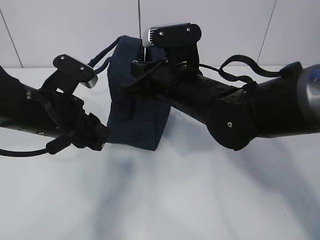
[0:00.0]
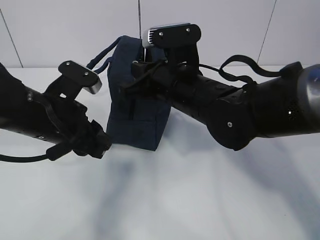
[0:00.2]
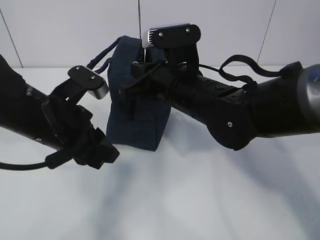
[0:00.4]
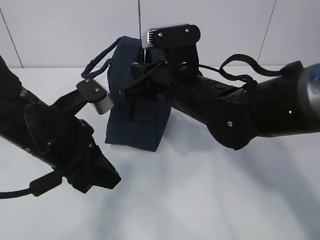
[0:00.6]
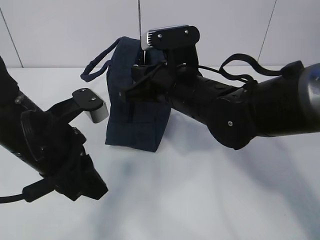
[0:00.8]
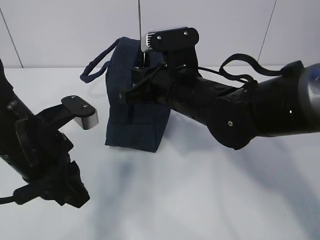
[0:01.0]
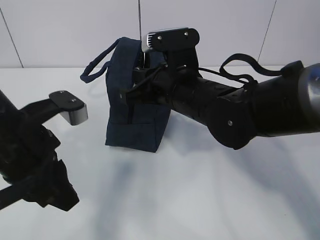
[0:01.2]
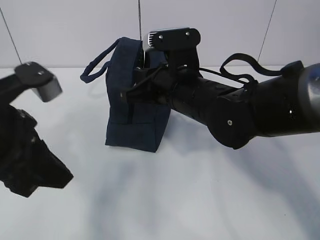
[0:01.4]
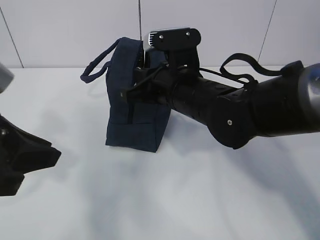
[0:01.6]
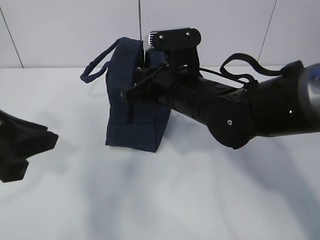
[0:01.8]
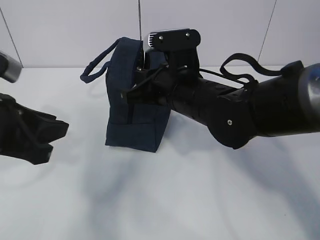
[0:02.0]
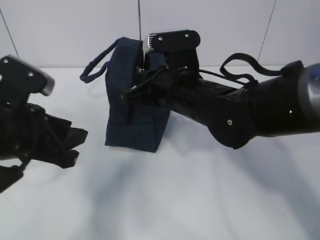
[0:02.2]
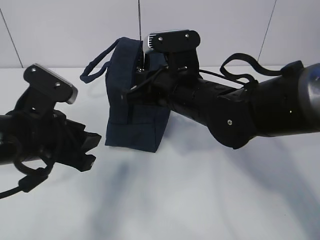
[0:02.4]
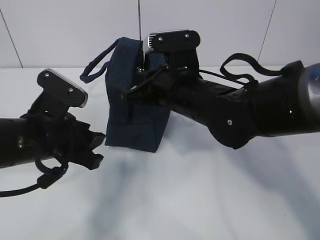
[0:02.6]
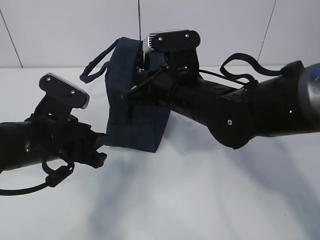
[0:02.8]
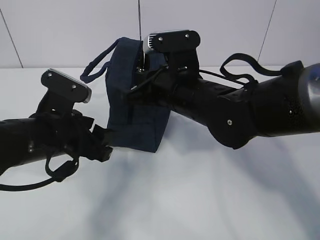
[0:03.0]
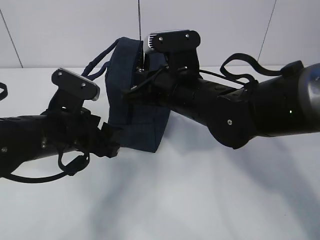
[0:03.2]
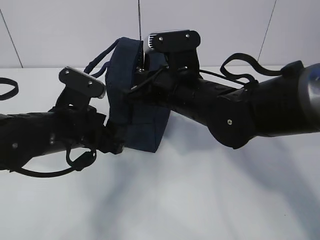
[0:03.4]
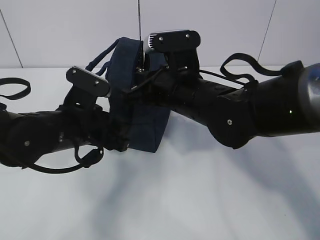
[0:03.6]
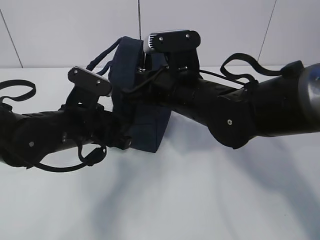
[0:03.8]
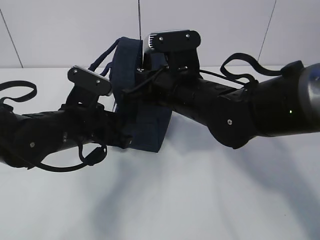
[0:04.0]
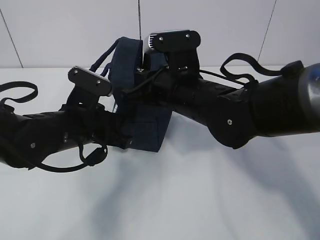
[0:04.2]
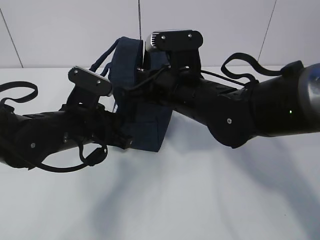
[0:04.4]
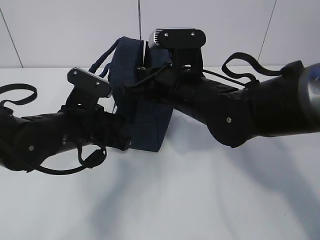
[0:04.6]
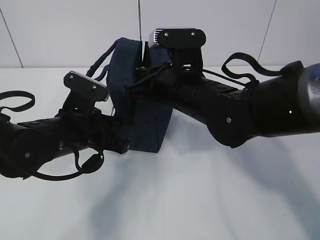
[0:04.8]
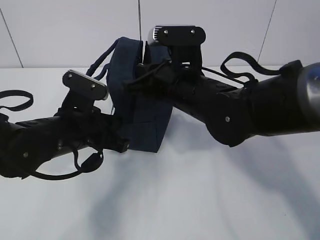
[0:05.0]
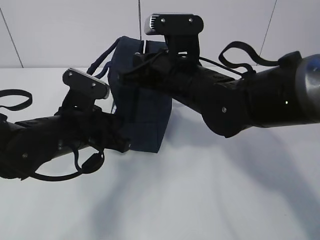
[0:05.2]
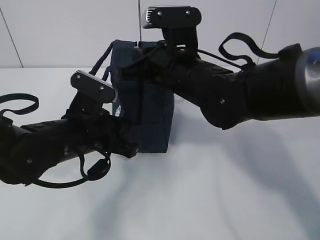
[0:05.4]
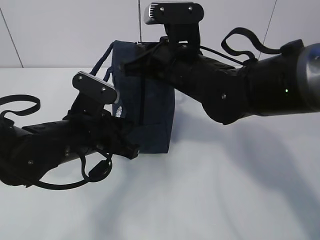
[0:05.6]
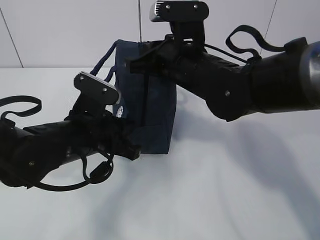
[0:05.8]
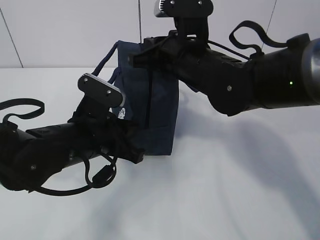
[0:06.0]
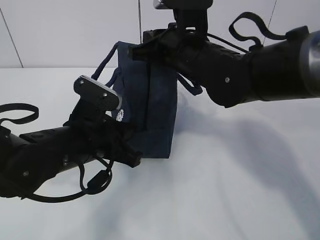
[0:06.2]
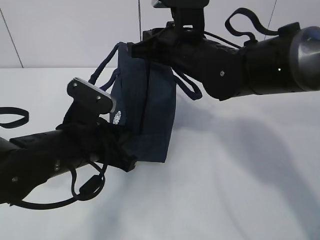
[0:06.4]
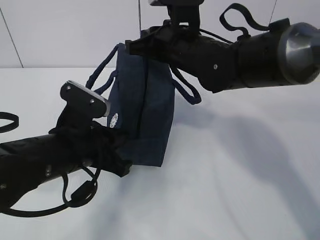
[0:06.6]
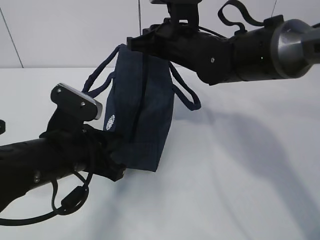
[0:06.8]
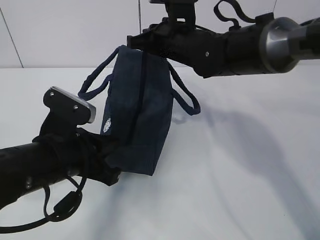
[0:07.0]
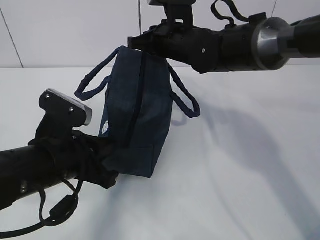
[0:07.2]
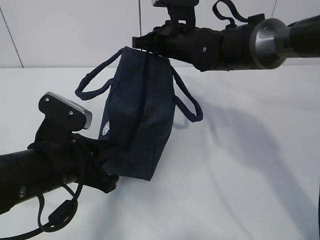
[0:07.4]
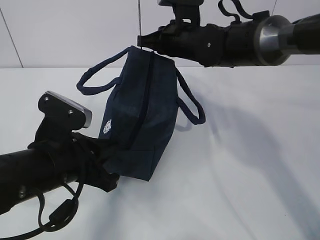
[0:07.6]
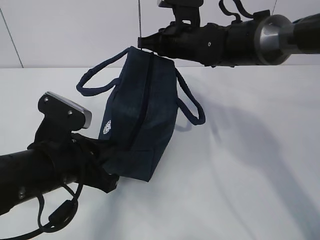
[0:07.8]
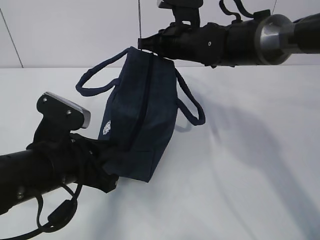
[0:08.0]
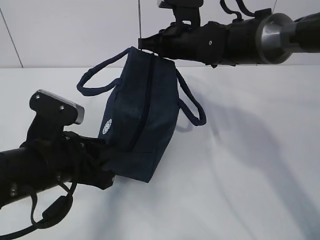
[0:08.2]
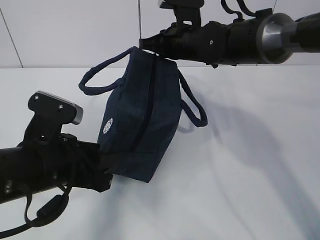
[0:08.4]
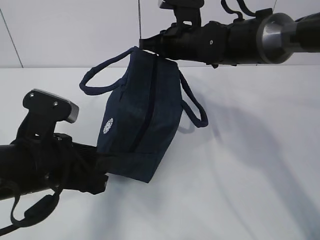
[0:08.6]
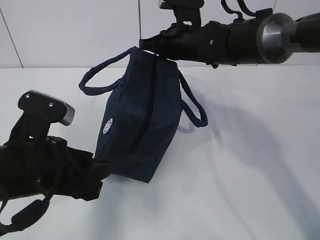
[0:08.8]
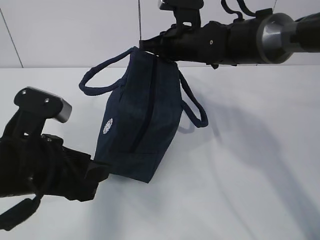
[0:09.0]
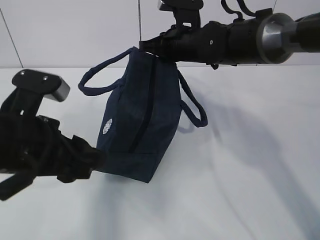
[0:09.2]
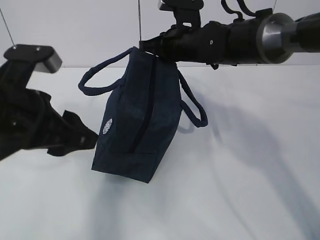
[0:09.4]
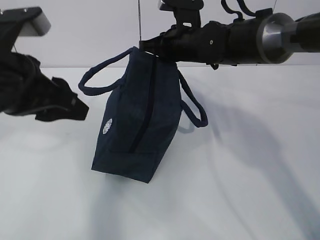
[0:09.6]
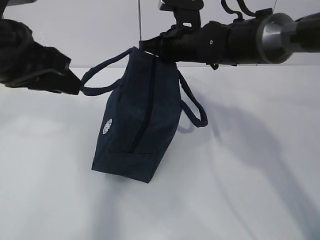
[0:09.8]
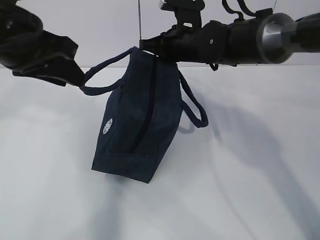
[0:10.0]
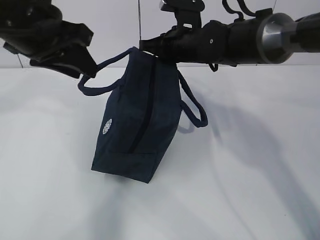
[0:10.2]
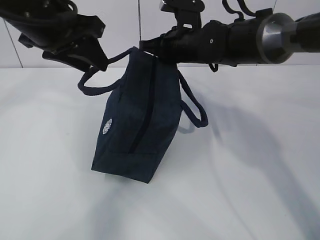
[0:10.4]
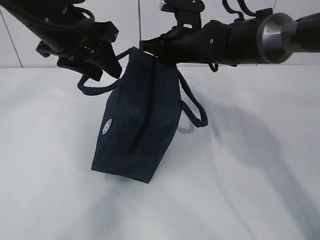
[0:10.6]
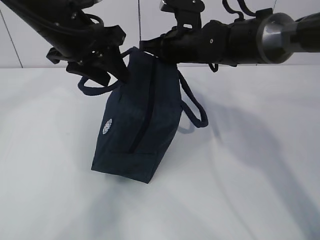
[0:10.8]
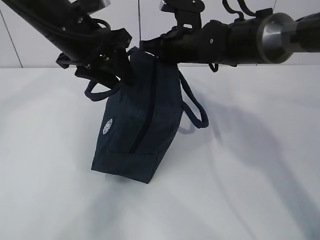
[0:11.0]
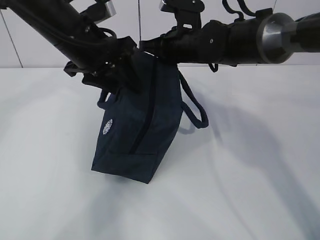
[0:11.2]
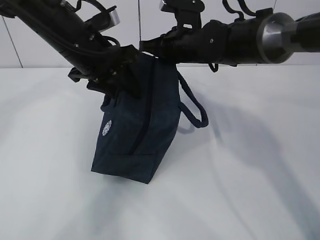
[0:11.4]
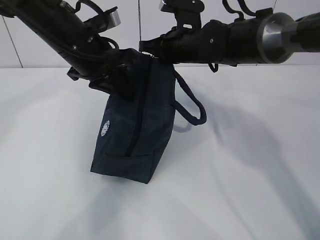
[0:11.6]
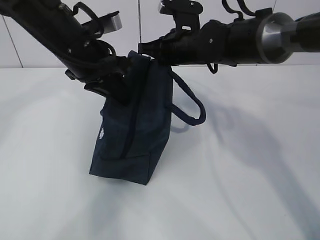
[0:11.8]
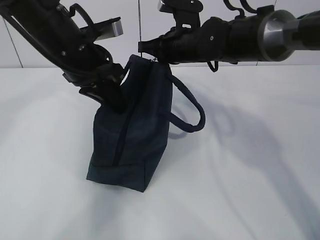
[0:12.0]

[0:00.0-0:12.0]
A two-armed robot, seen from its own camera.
Step, 0:01.6 to 0:02.2: Grab the lunch bag with your left hand.
0:00.0 to 0:01.6: The left gripper is displaced backward and upward by roughly 15 cm.
0:01.6 to 0:03.0: The left gripper travels downward and forward by roughly 15 cm, and opens up.
0:03.0 to 0:04.4: The left gripper closes up.
0:06.0 to 0:07.6: The right gripper goes some 10 cm forward; the left gripper is displaced backward by approximately 5 cm.
0:07.6 to 0:09.0: The left gripper moves about 5 cm, and opens its fingers.
0:09.0 to 0:10.4: The left gripper moves forward and upward, about 20 cm.
0:10.4 to 0:12.0: The left gripper moves downward, about 5 cm, and closes up.

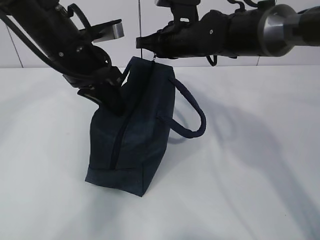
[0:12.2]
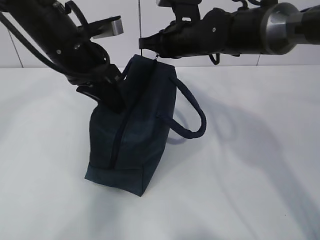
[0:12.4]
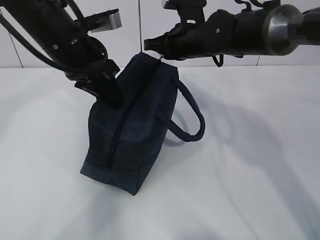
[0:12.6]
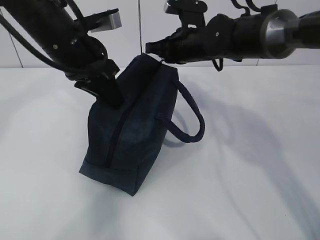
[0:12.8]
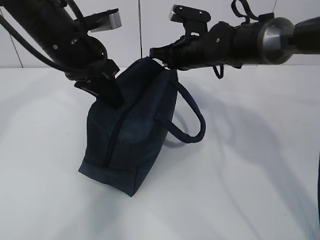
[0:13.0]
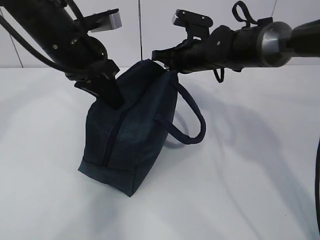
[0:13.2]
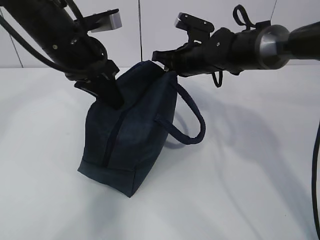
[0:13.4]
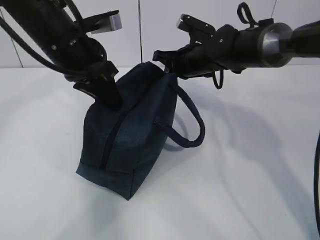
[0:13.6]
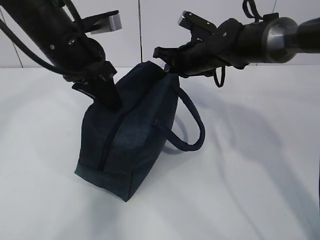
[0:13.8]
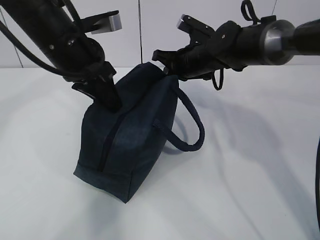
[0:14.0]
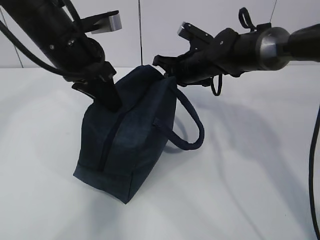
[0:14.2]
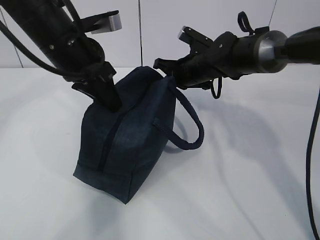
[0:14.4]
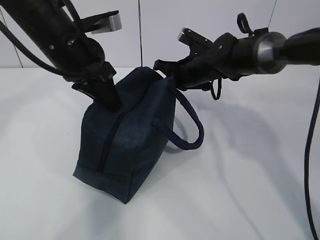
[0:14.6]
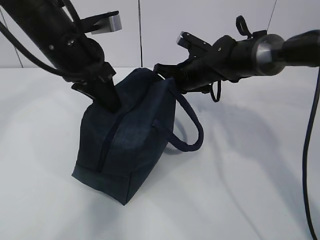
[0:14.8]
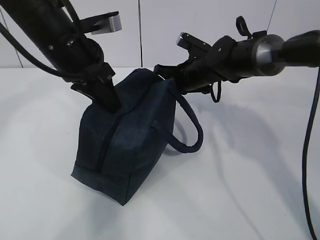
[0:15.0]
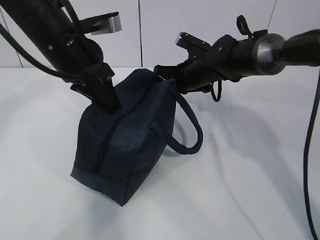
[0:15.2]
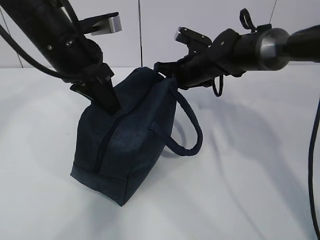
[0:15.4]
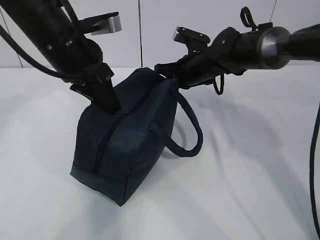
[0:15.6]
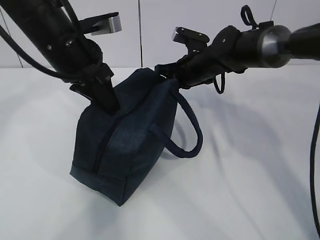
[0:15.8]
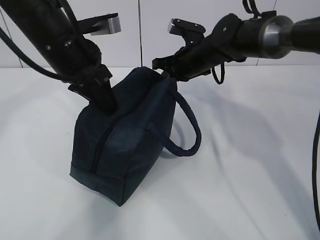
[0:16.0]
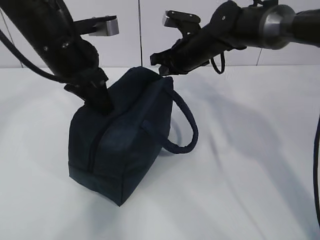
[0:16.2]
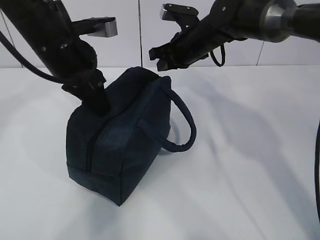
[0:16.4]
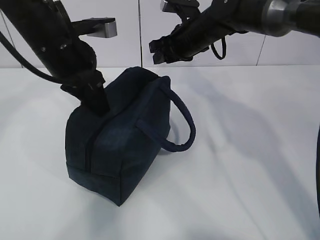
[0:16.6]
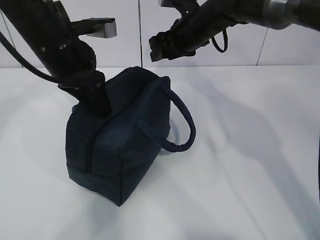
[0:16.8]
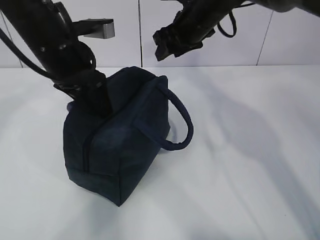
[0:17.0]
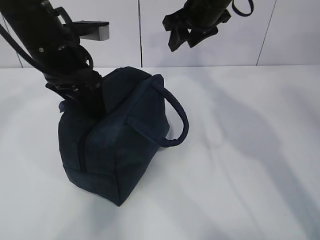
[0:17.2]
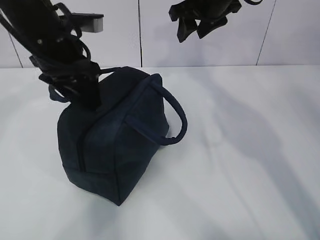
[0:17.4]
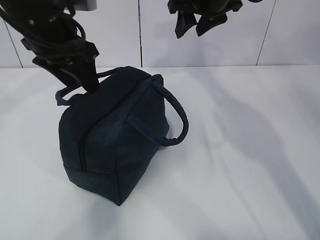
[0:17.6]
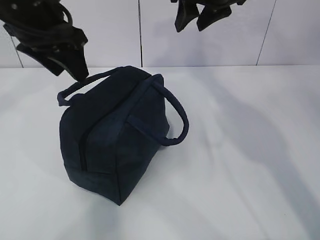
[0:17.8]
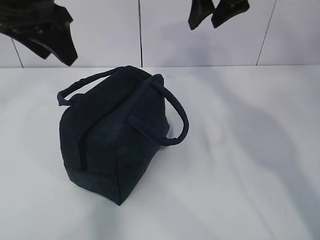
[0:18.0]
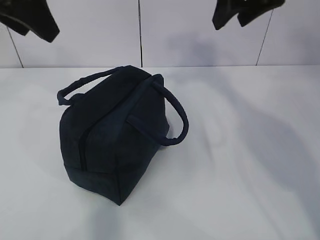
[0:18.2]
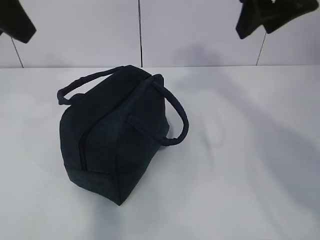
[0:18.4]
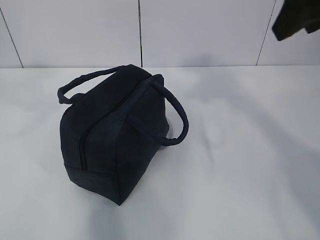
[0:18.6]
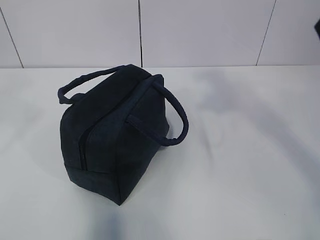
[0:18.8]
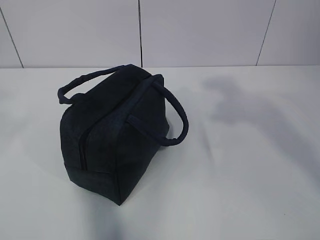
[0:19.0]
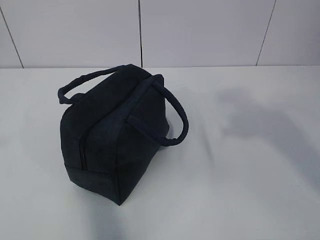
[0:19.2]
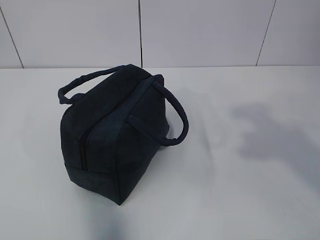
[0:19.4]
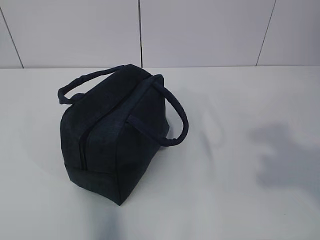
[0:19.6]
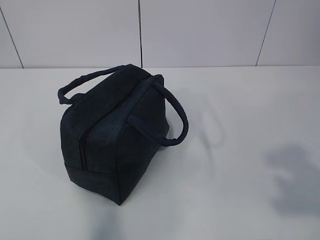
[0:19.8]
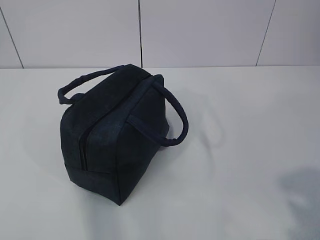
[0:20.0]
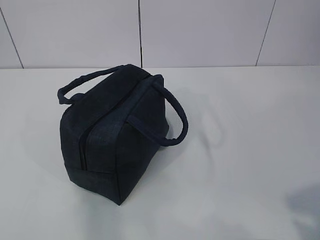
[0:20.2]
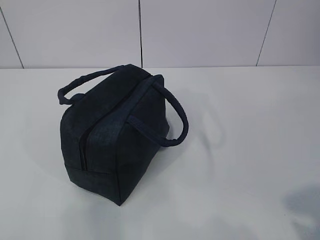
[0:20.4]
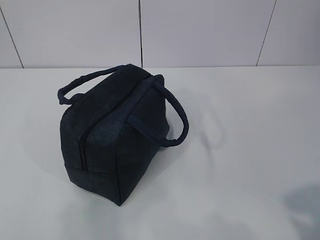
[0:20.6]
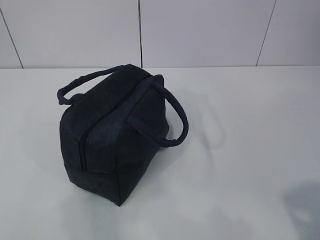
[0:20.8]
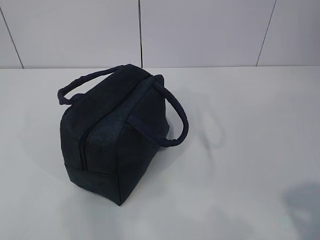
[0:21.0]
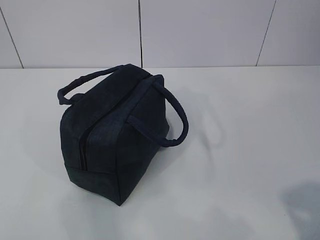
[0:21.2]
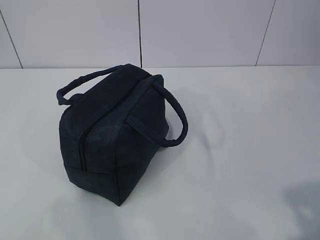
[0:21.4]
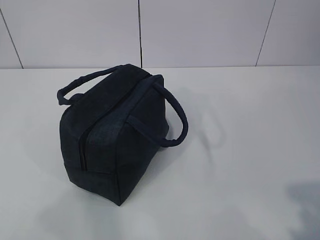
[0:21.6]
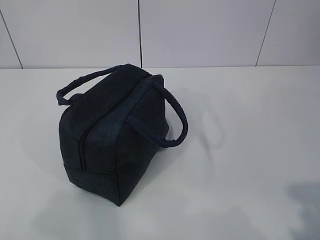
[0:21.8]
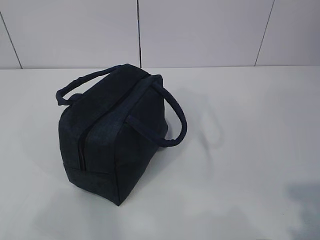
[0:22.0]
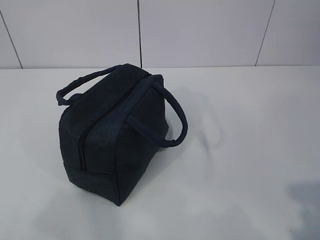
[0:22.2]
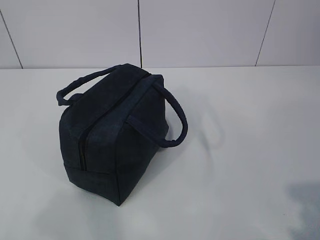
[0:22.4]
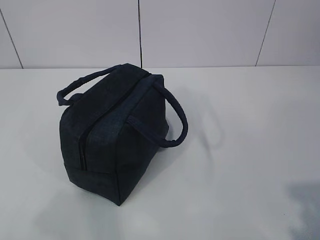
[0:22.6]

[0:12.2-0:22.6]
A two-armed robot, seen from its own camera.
0:12.2 to 0:13.6: The right gripper moves approximately 5 cm.
0:13.6 to 0:15.2: The grippers make only small movements.
0:15.2 to 0:16.6: The right gripper shifts about 10 cm upward, and opens up.
0:16.6 to 0:18.2: The two grippers go roughly 15 cm upward and backward. The left gripper opens.
0:18.2 to 0:19.6: The left gripper moves backward and to the left, about 30 cm. Meanwhile the right gripper moves backward, approximately 35 cm.
0:19.6 to 0:21.2: Both grippers move downward, roughly 10 cm.
